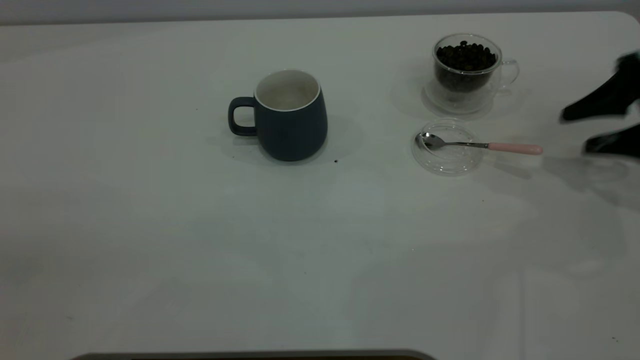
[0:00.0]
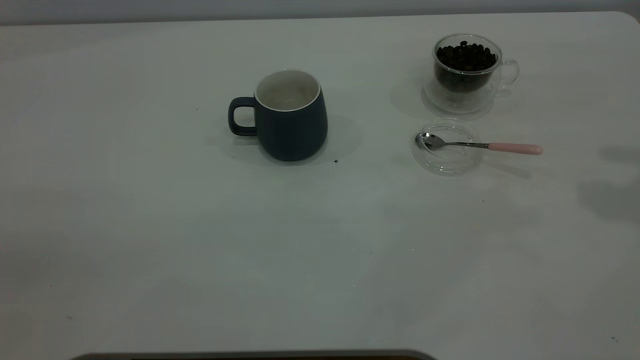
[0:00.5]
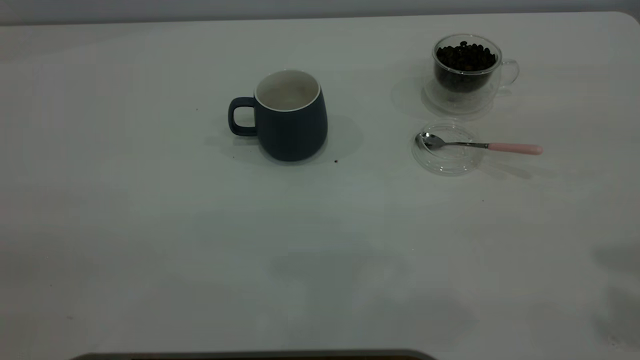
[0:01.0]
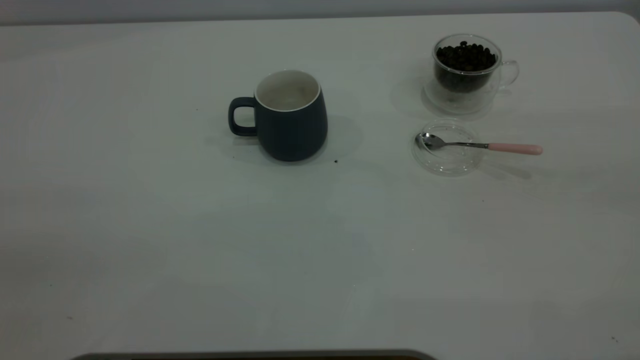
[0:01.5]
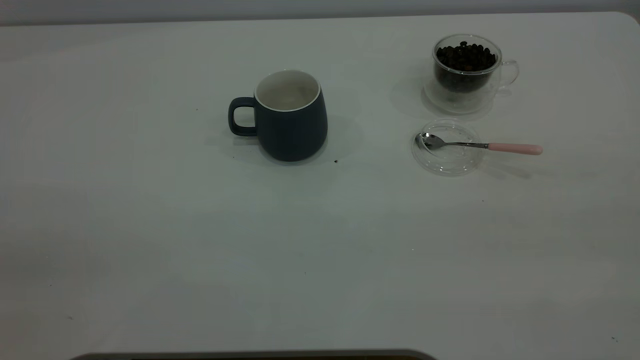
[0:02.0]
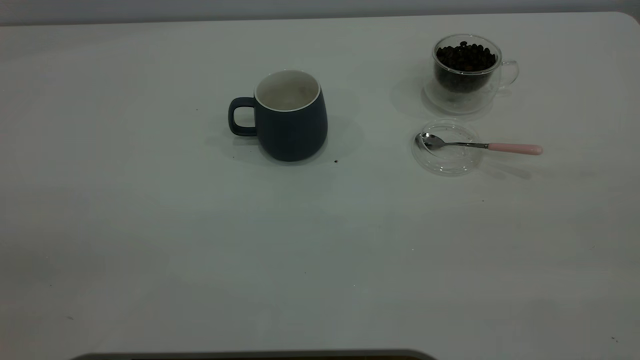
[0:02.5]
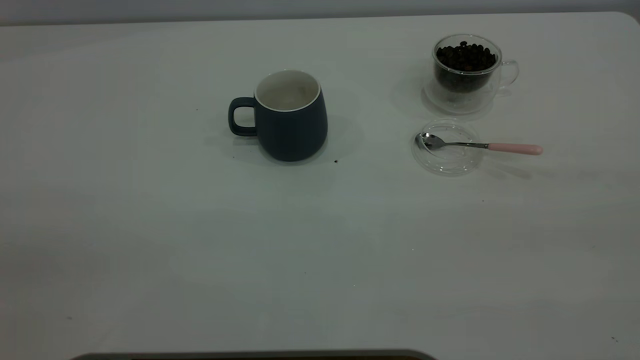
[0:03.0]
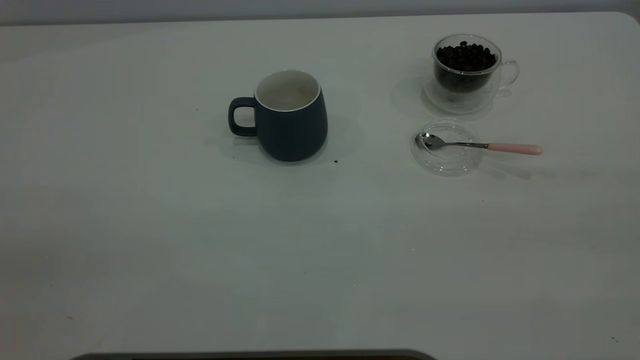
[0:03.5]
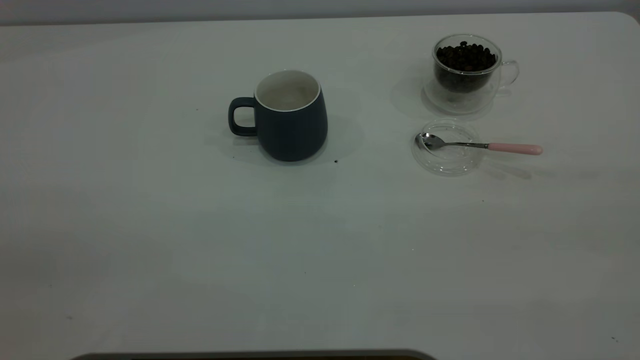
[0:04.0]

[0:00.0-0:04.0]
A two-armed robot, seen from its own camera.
Task of the whole recording: the left gripper place the grey cup in the center of the table, the right gripper take the pink spoon from the cup lid and scoop out the coffee beans from the coffee cup and put them into the grey cup, the right gripper put the spoon back into the cup lid.
0:00.0 to 0:02.0: The right gripper moves backward and upward, approximately 40 cm.
